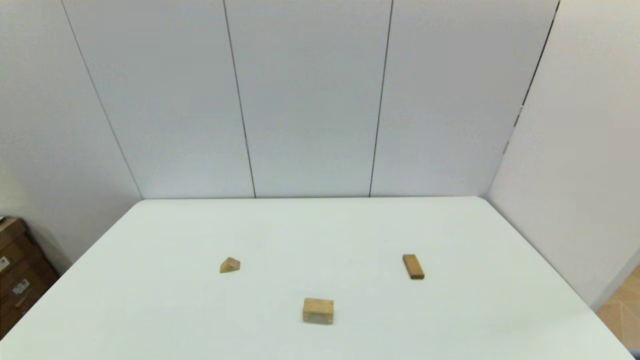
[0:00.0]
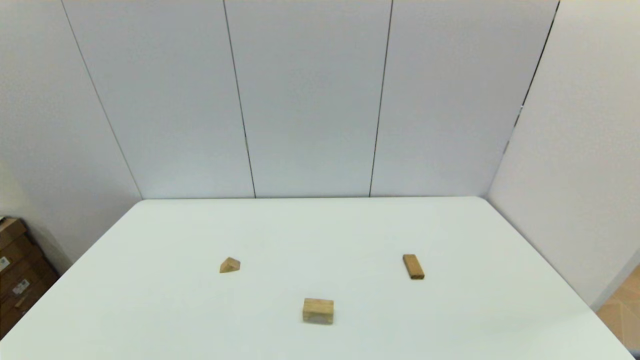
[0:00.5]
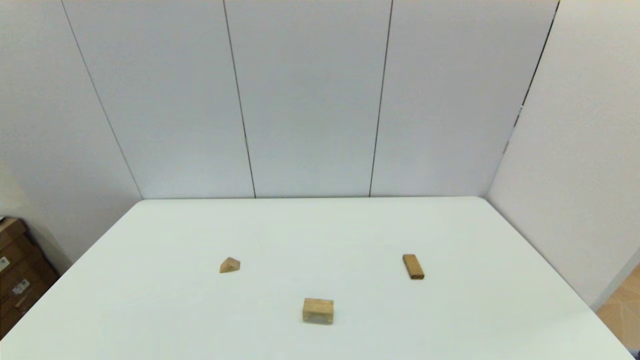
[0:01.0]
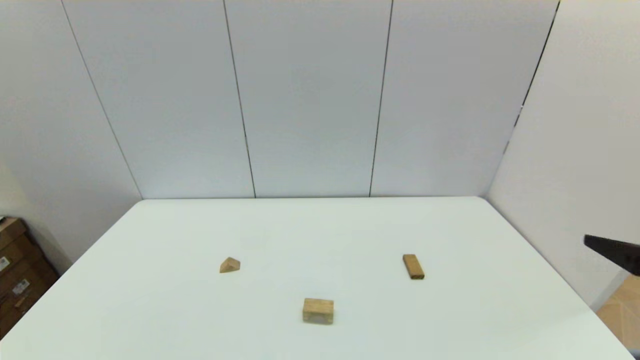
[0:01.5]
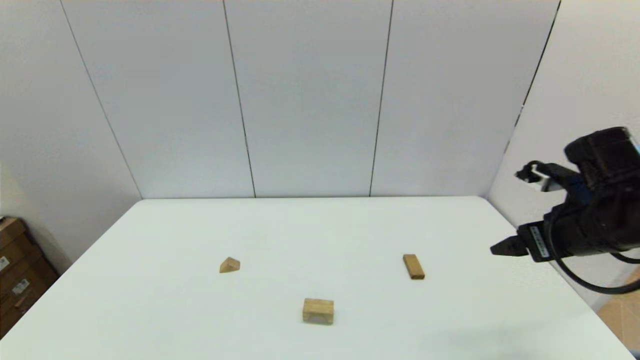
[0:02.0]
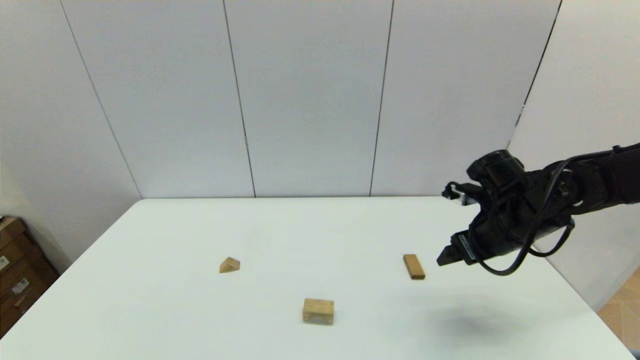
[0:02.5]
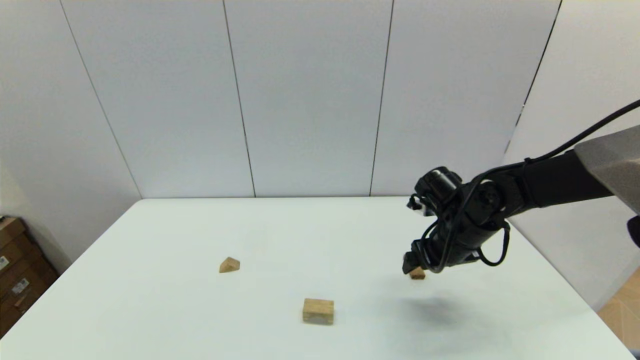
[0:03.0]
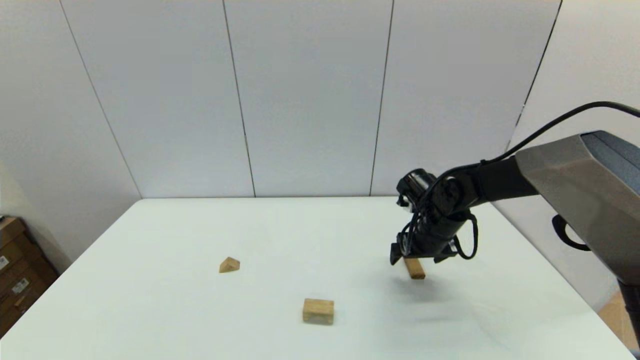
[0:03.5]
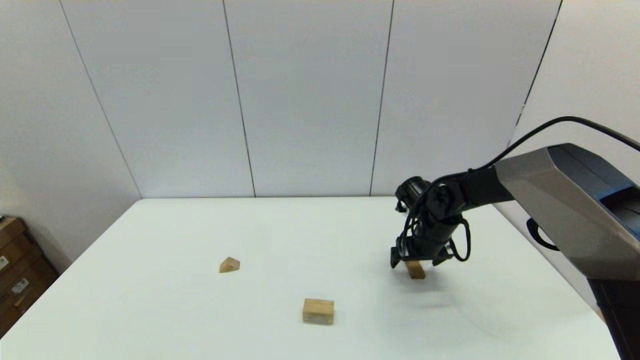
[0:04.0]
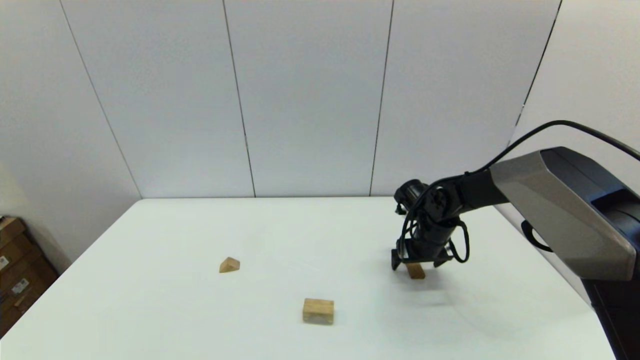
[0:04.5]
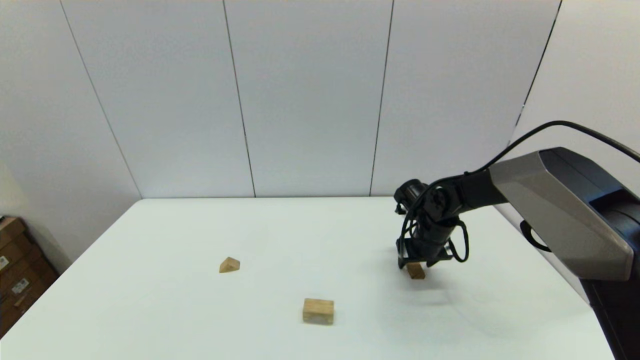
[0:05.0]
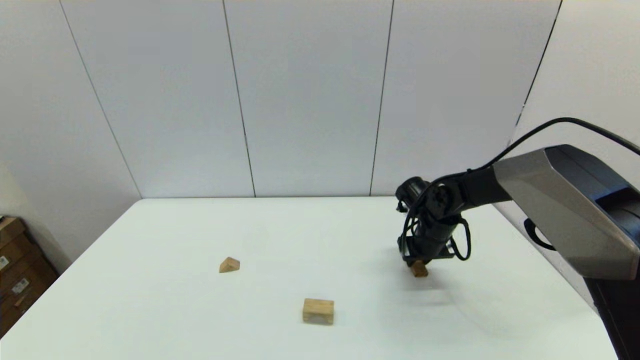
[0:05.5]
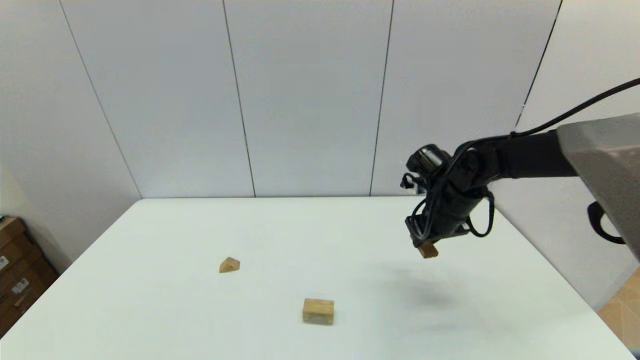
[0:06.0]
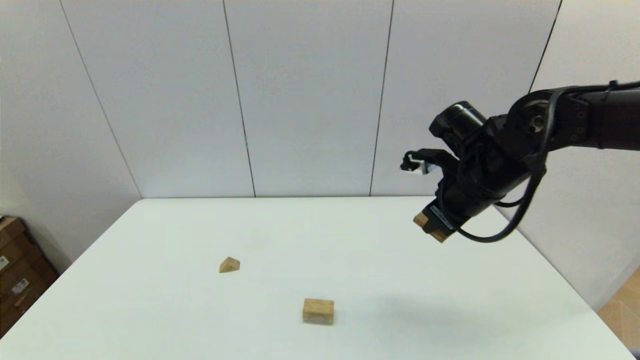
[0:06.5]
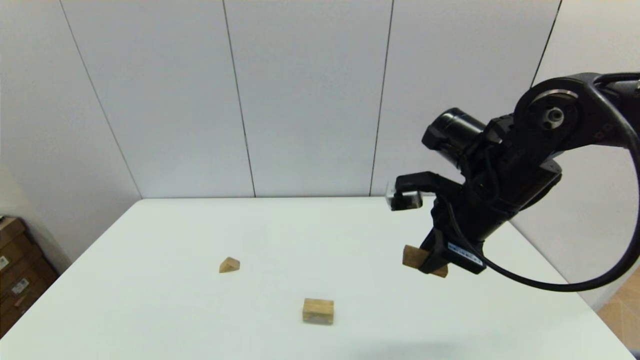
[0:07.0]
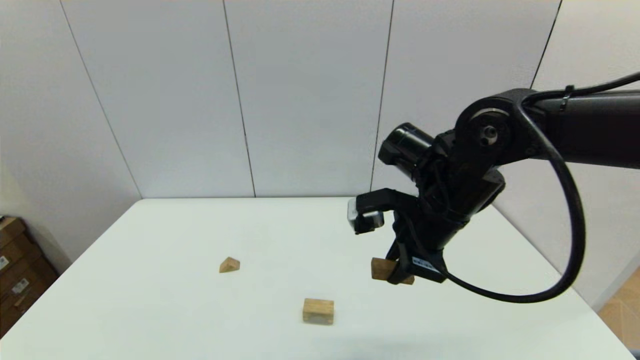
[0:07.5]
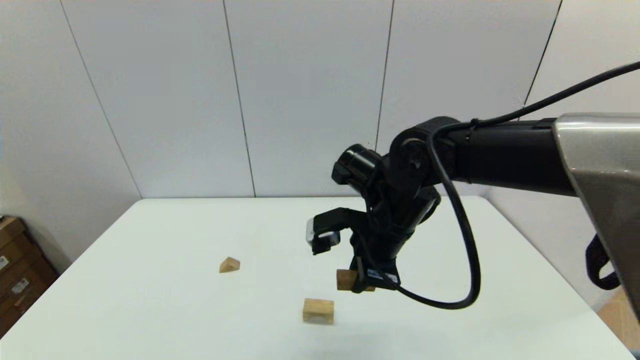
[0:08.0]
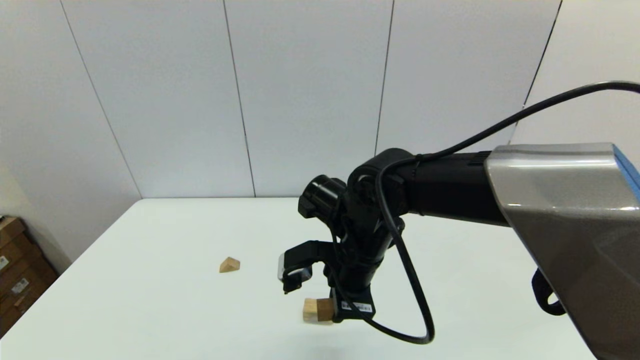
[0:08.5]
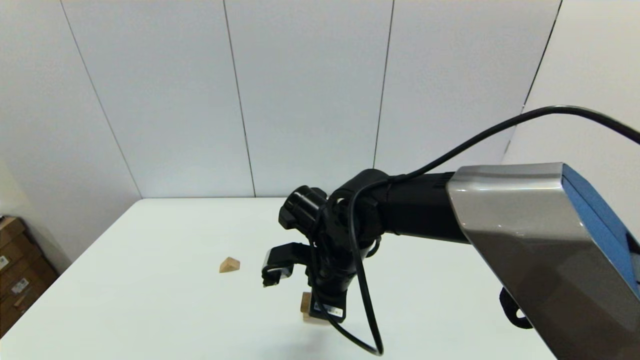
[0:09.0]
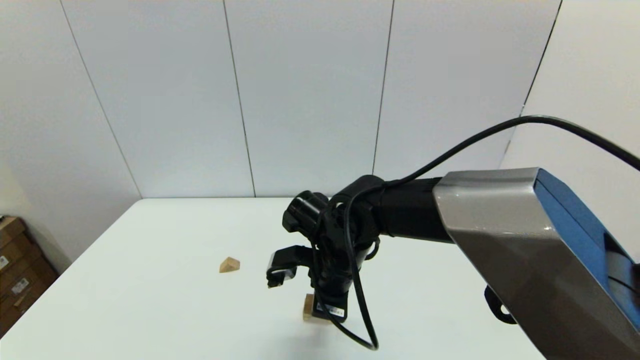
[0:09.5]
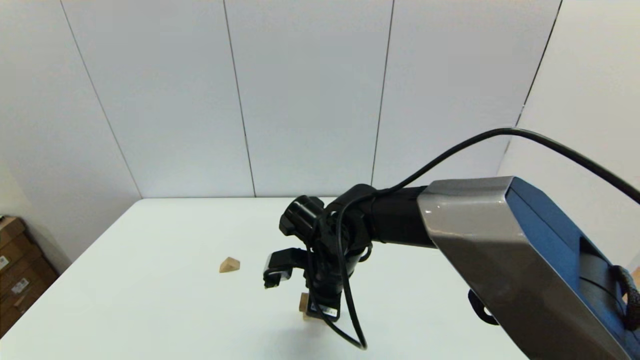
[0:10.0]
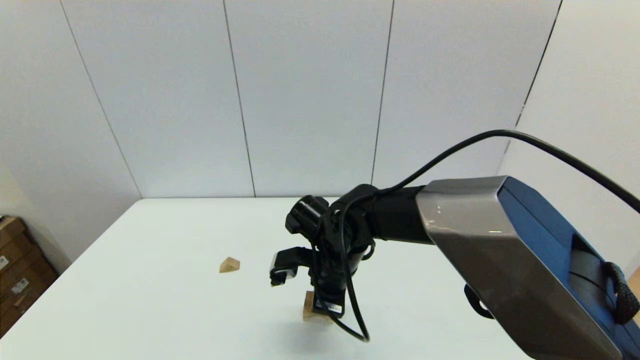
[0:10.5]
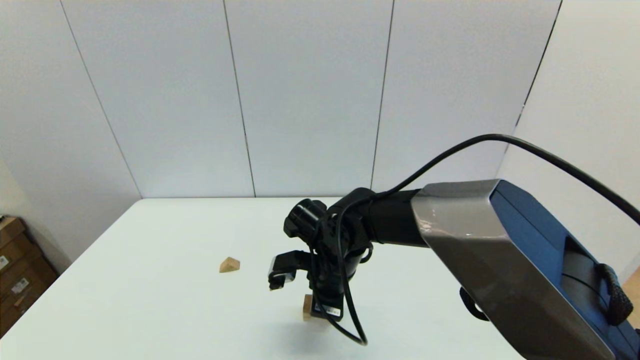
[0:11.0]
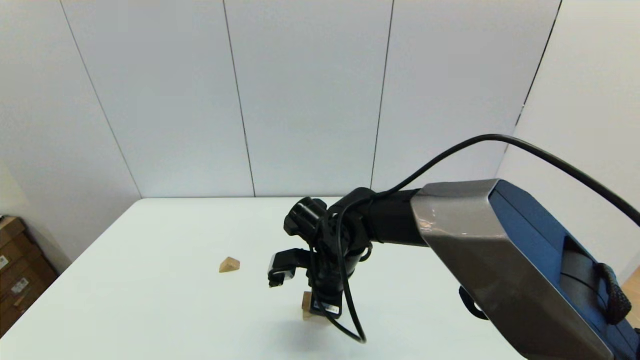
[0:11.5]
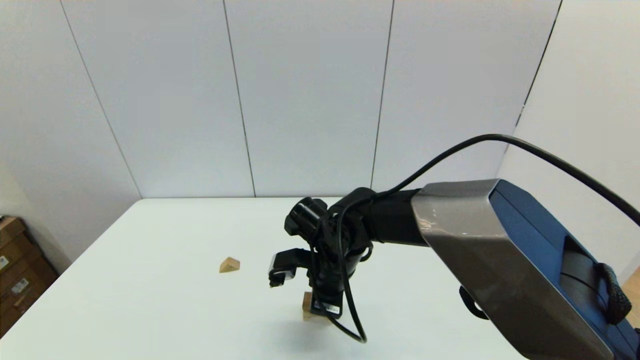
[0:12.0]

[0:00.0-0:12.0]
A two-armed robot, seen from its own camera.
Task of the whole recording: place the arched building blocks in the center of the table, set up the rectangular building blocks, and then set up the triangular building blocks.
Step, 0:00.0 to 0:05.0: Grasp the box-shaped block with the right gripper.
0:00.0 to 0:02.0: The right gripper shifts about 30 cm forward.
0:02.0 to 0:04.0: The right gripper goes some 25 cm forward, downward and to the left.
0:04.0 to 0:06.0: The right gripper goes roughly 10 cm upward, and closes up.
0:06.0 to 0:08.0: The right gripper shifts approximately 15 cm to the left and backward.
0:08.0 to 0:10.0: The right gripper is displaced downward and to the left by about 10 cm.
0:10.0 to 0:12.0: The grippers stay close to where they were, moving slightly.

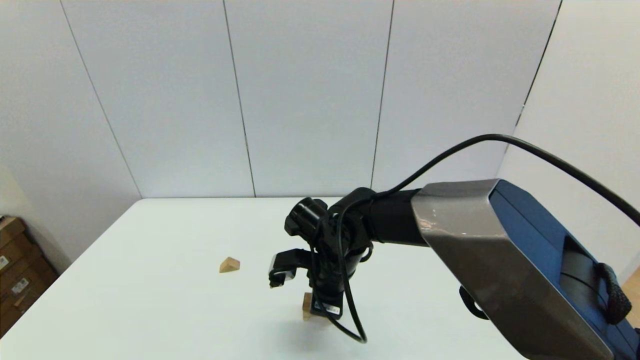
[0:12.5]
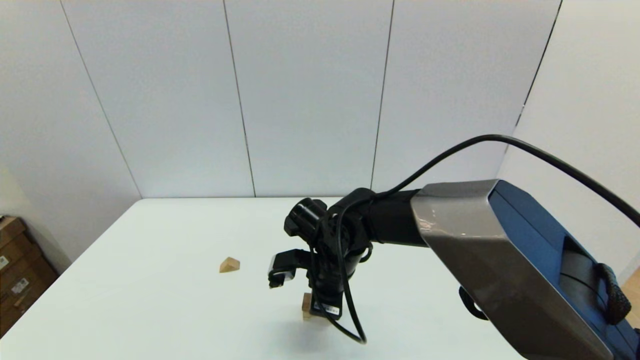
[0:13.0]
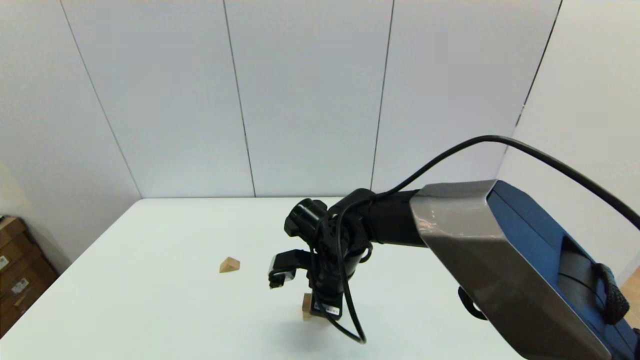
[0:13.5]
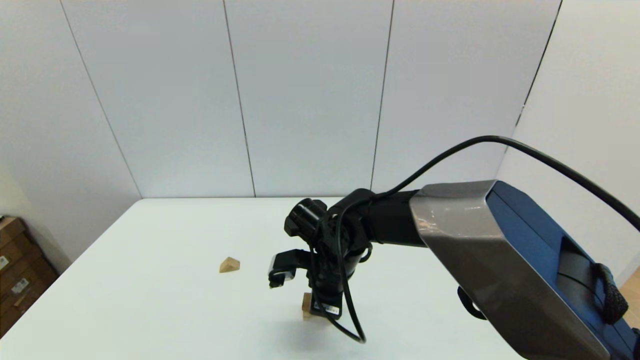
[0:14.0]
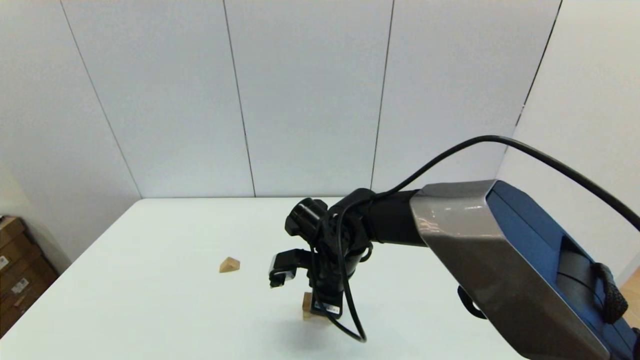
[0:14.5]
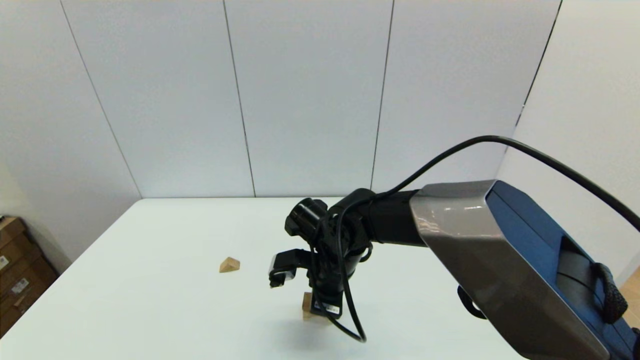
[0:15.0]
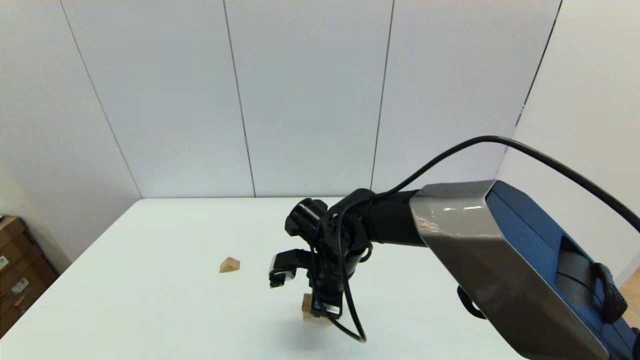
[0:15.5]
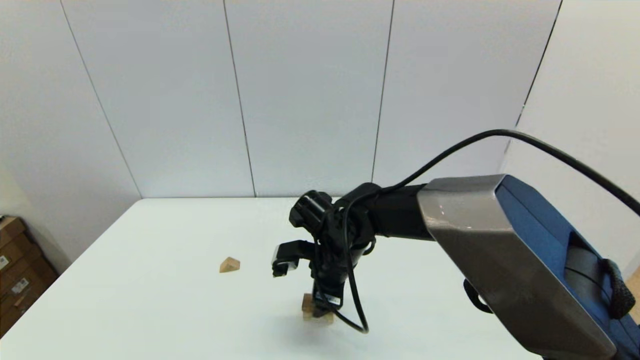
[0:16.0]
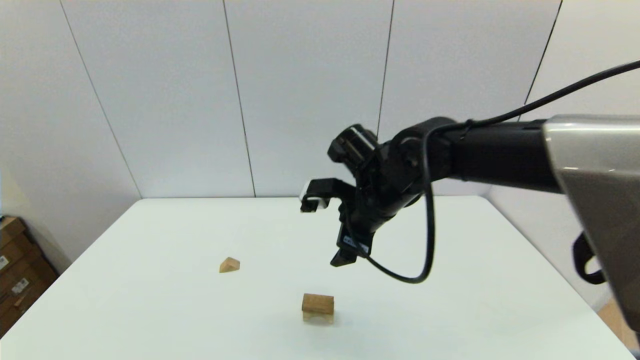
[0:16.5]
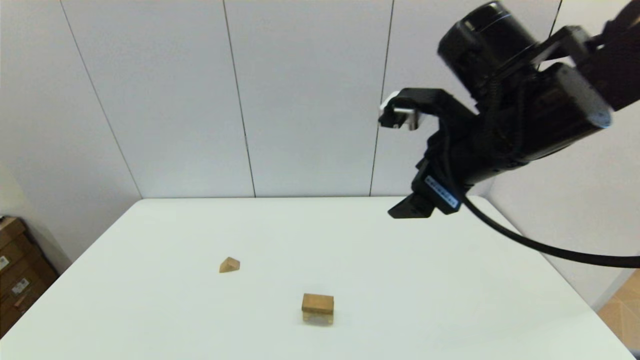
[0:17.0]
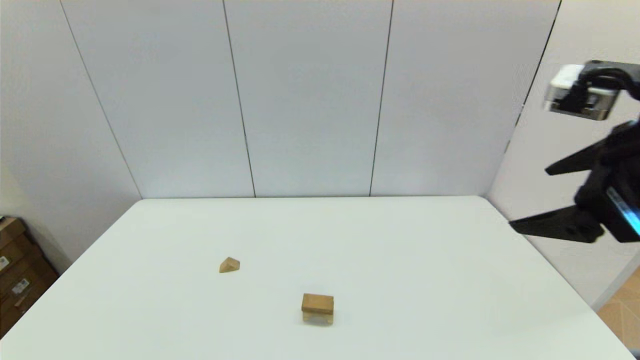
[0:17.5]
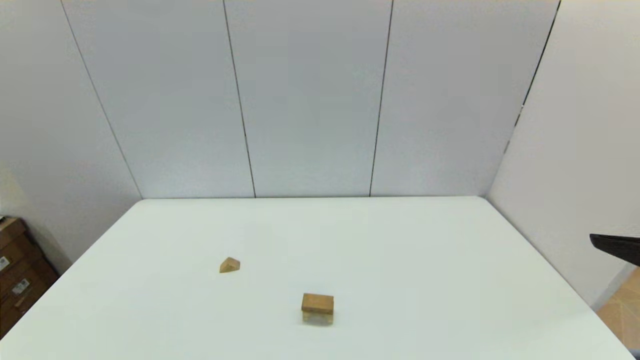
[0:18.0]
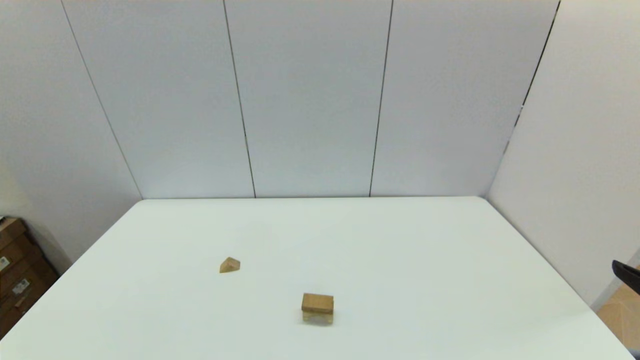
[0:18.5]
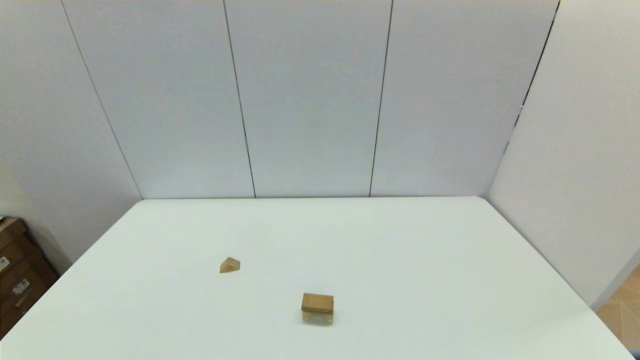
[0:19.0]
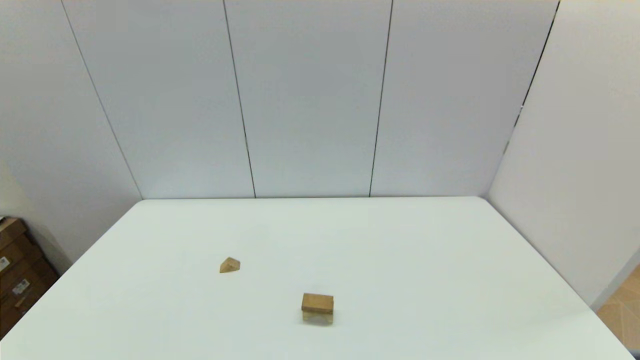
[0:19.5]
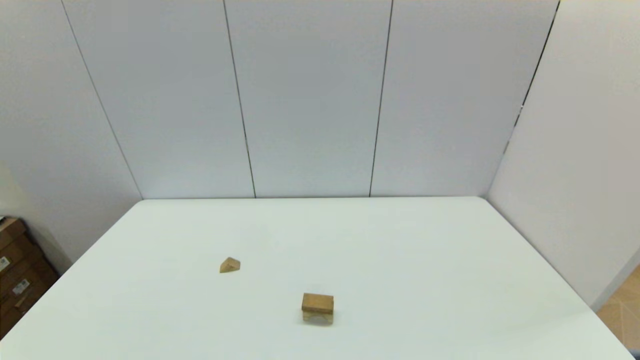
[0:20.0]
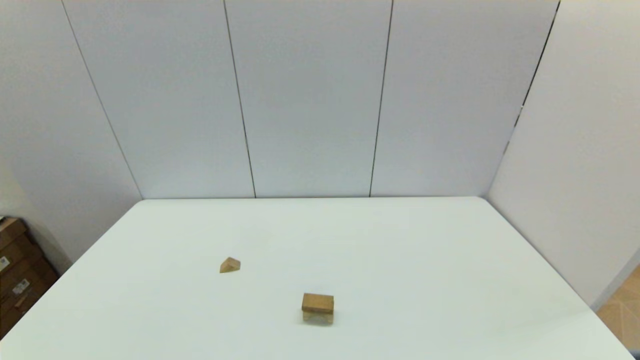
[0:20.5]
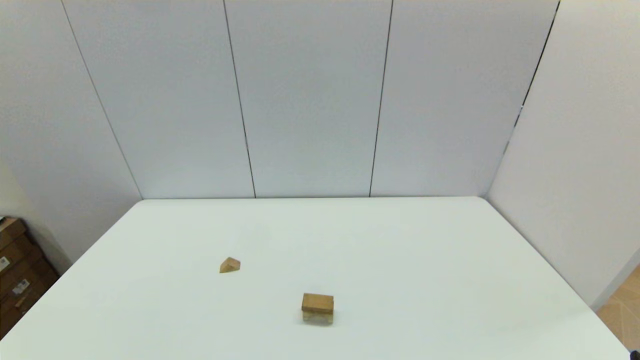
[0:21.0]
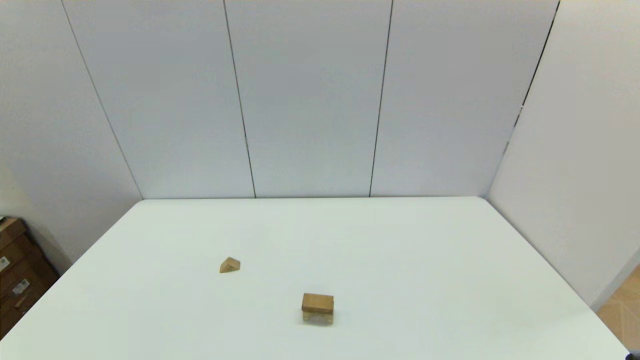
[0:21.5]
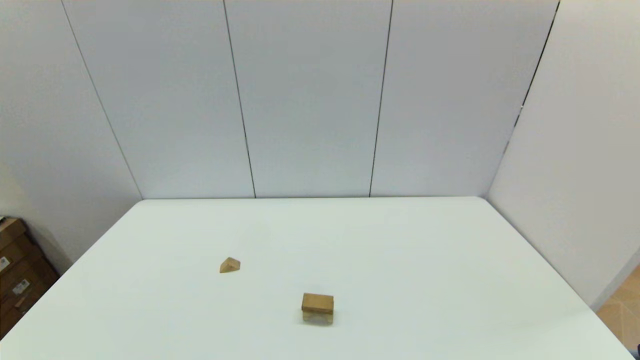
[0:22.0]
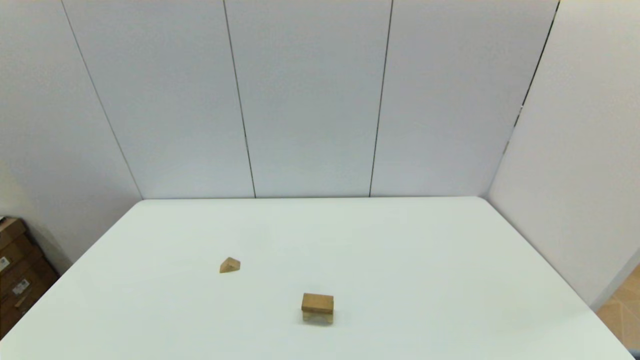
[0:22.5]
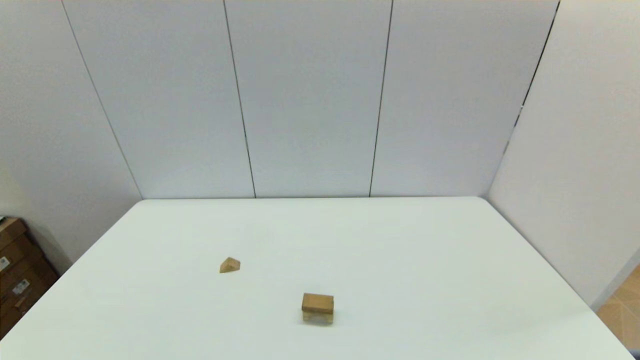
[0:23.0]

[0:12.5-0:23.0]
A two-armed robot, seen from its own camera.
Task of the whole recording: place the arched building blocks in the center of the table, set up the rectangular building blocks, and then set up the triangular building blocks.
Step, 0:12.5 to 0:15.5: Place the box-shaped block onto the arch-shaped block with the right gripper.
0:12.5 to 0:14.5: The two grippers keep their place.
0:14.5 to 0:16.5: The right gripper moves upward and to the right, roughly 15 cm, and opens its fingers.
0:16.5 to 0:19.0: The right gripper goes about 40 cm backward and to the right.
